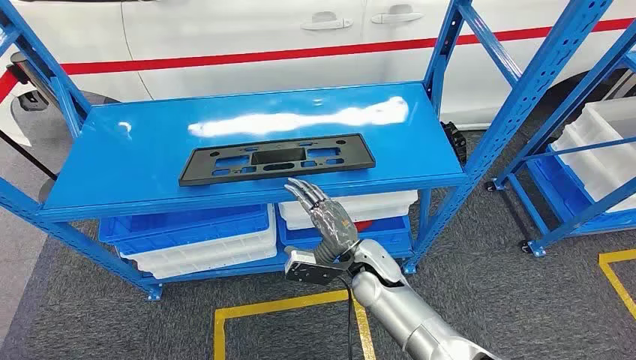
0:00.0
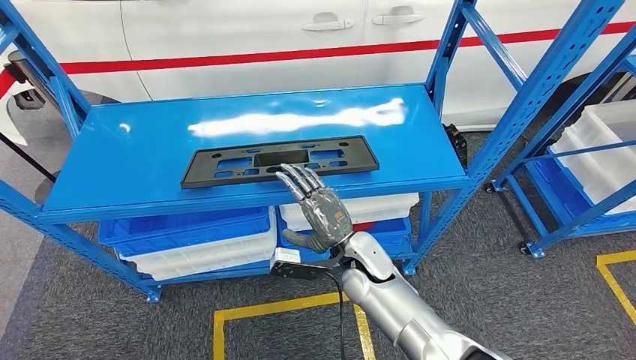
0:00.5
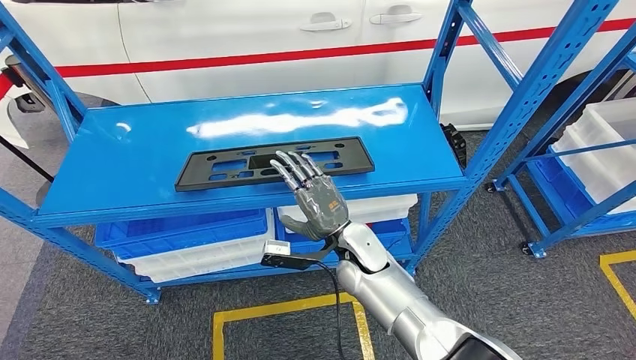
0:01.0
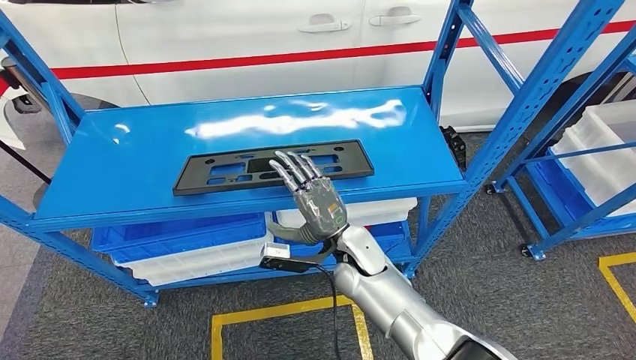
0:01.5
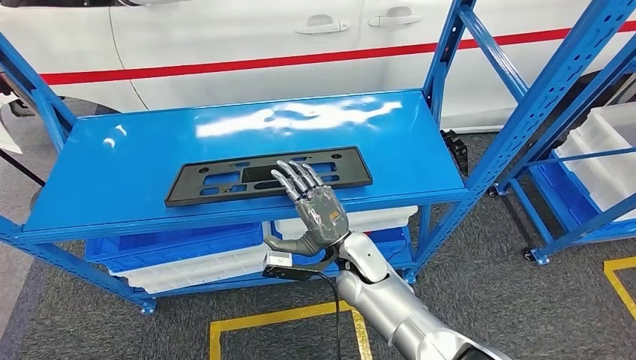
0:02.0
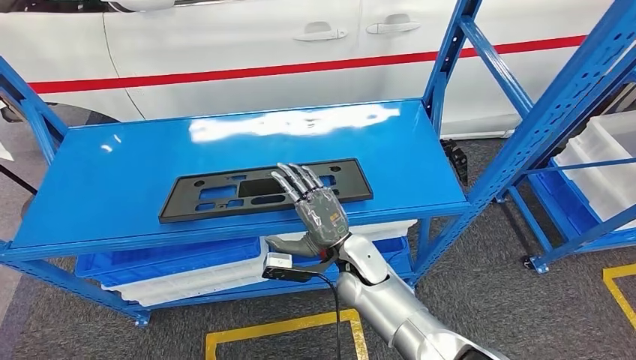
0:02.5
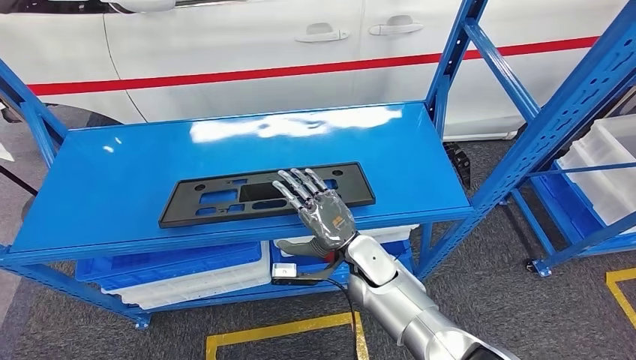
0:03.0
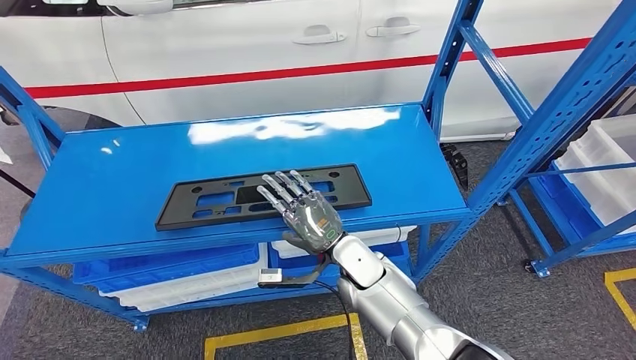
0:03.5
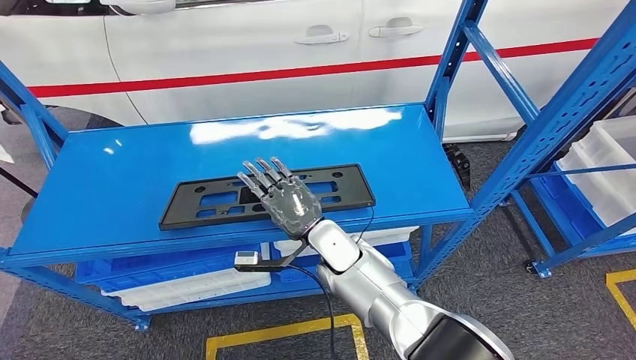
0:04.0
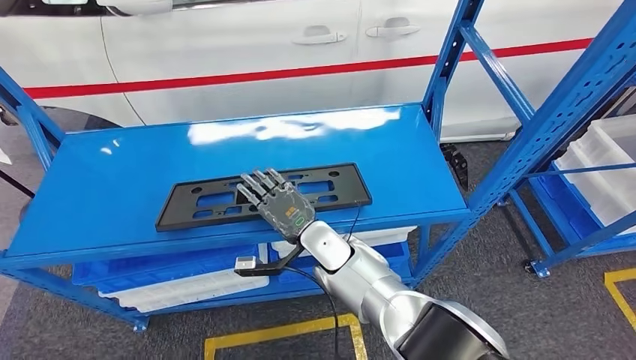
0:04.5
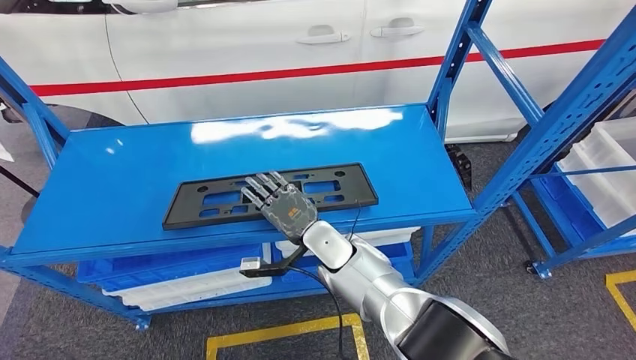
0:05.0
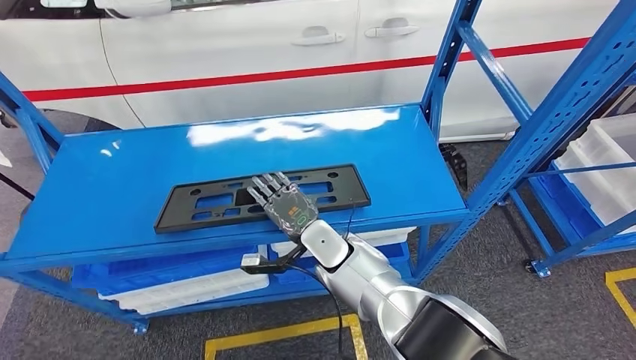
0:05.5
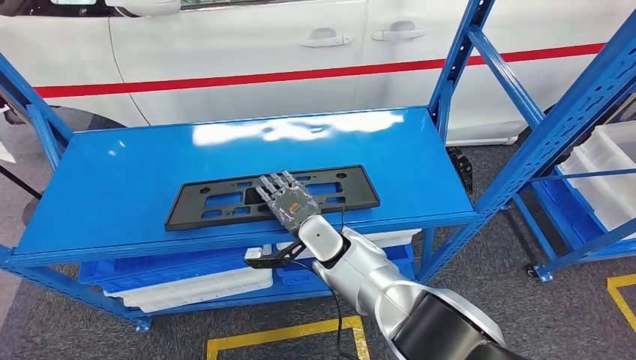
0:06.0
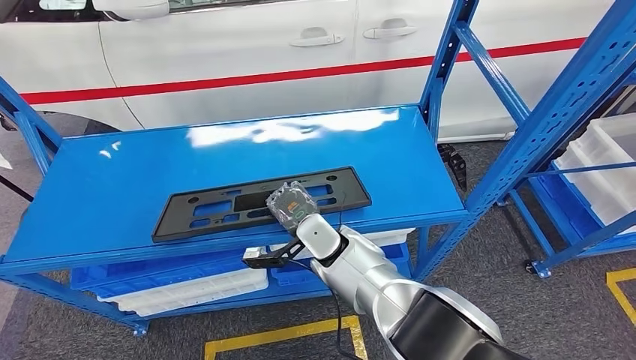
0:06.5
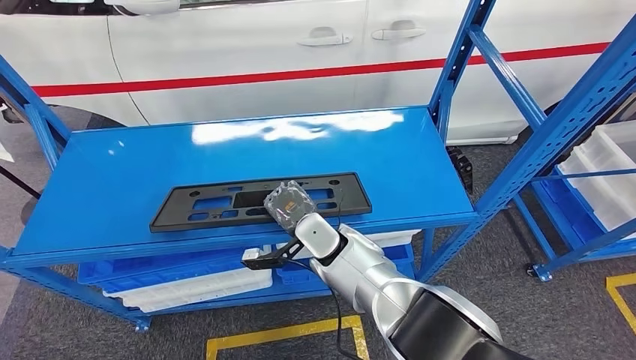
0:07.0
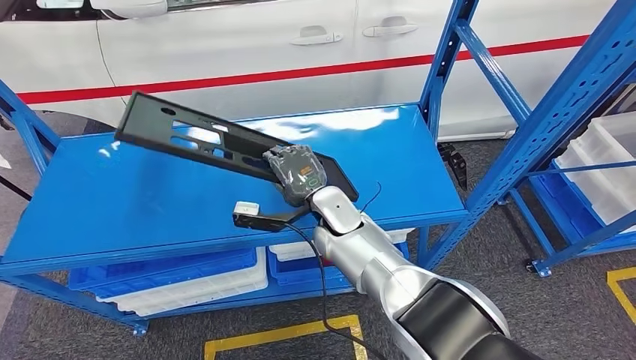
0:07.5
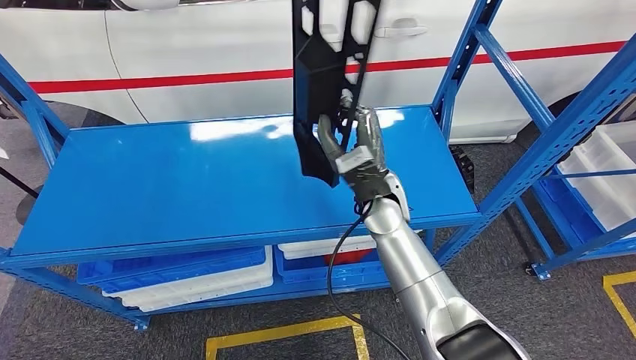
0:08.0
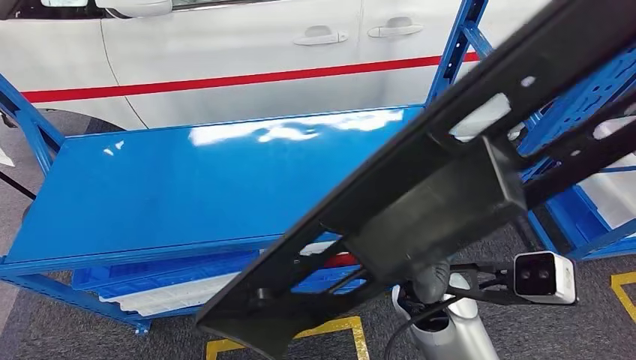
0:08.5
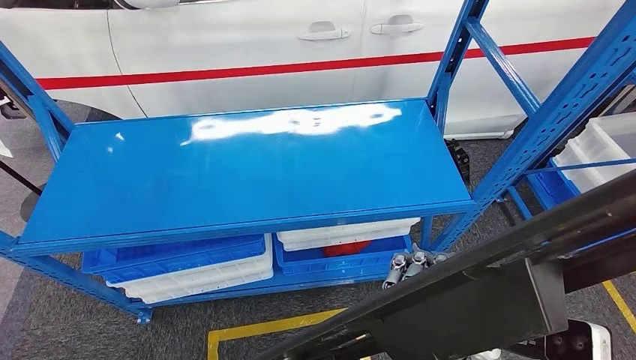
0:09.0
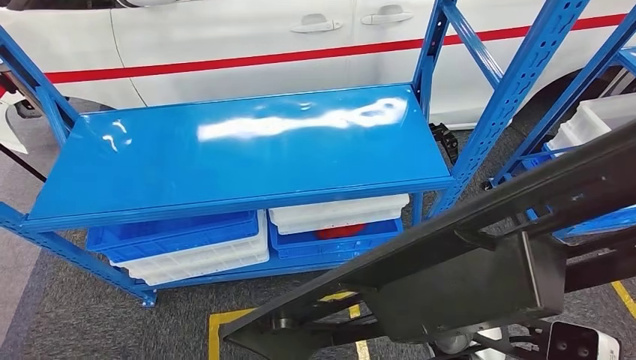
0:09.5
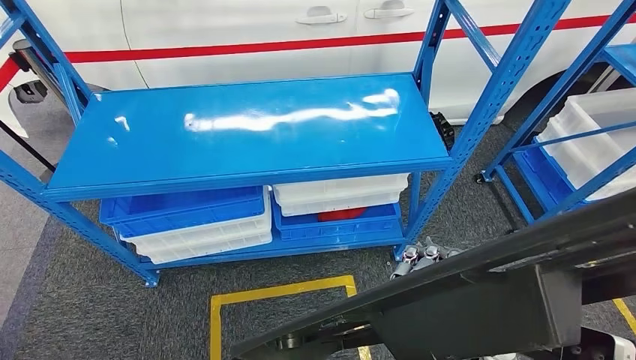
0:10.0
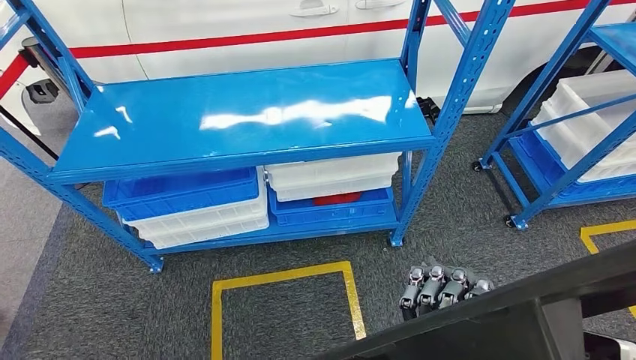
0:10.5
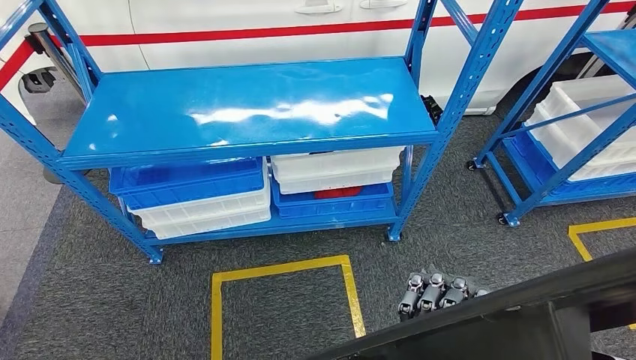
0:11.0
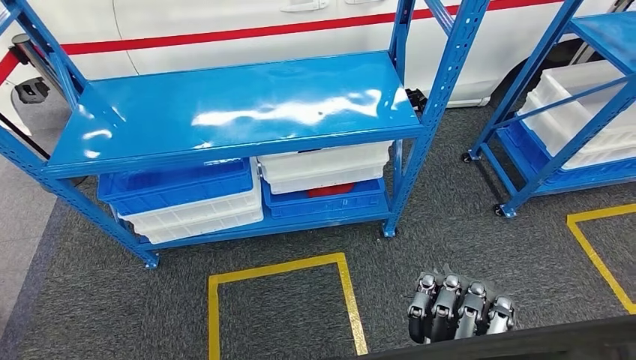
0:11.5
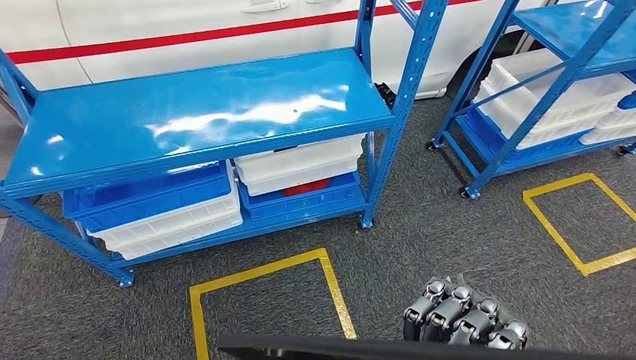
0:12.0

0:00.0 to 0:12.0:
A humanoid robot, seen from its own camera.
Step, 0:00.0 to 0:08.5: Pick up the large material from the shelf.

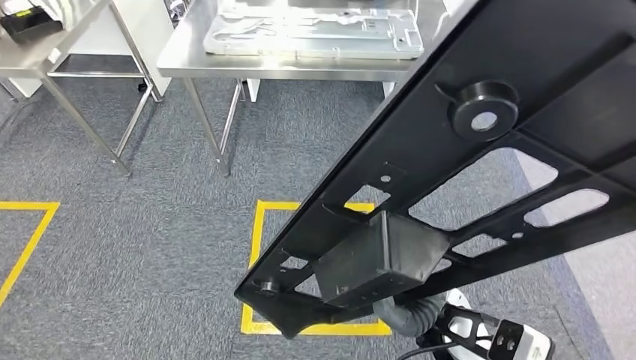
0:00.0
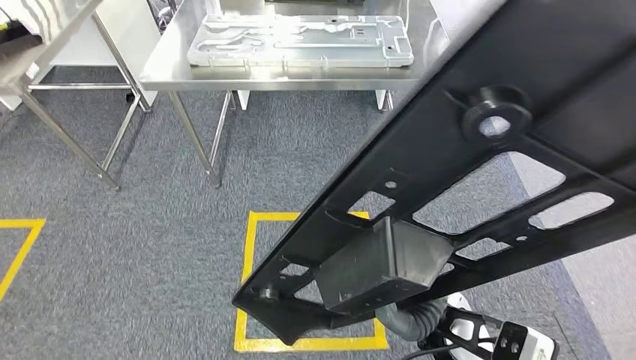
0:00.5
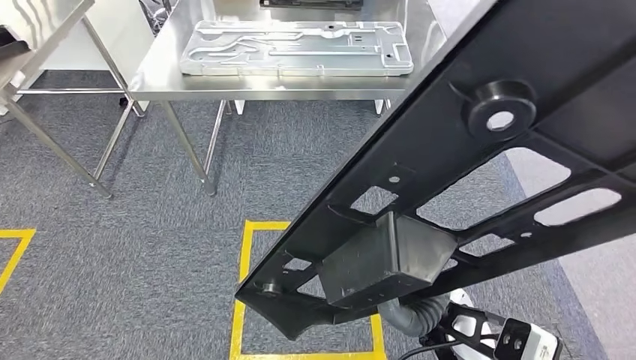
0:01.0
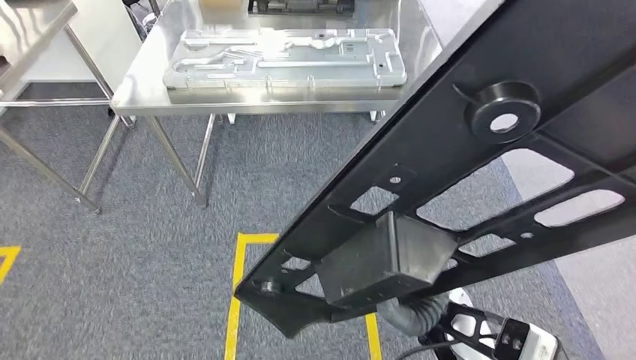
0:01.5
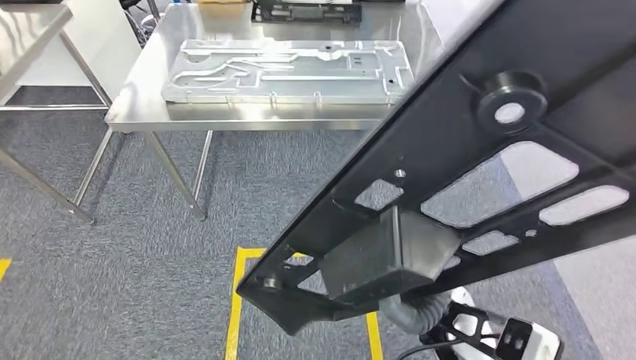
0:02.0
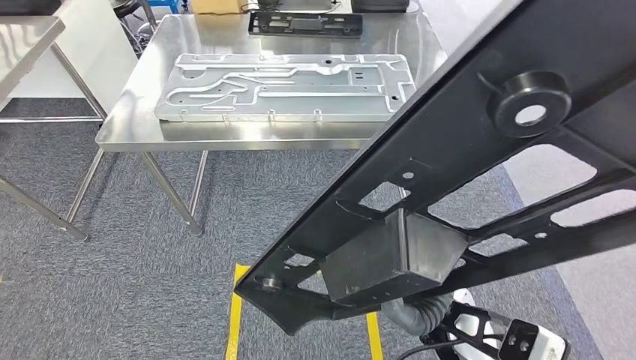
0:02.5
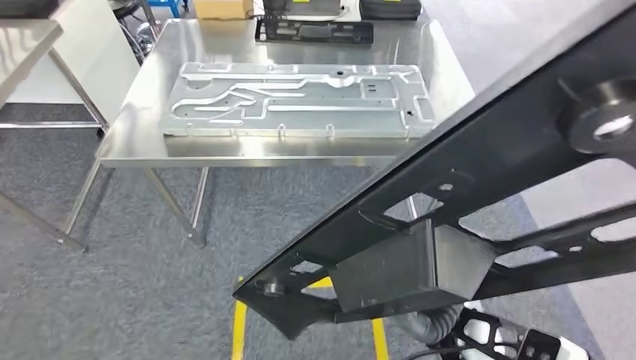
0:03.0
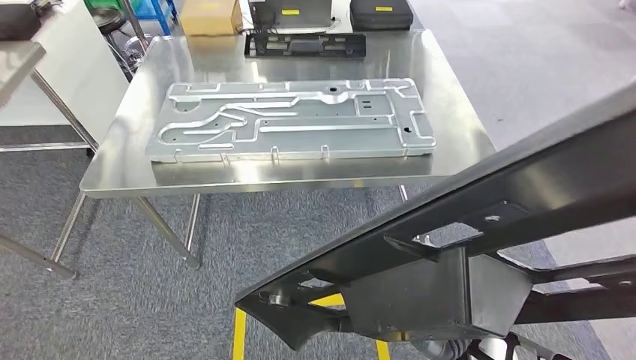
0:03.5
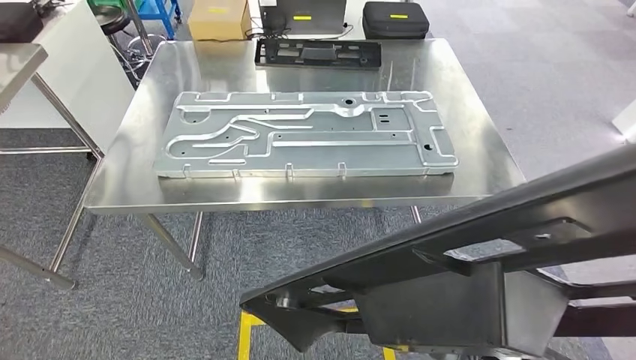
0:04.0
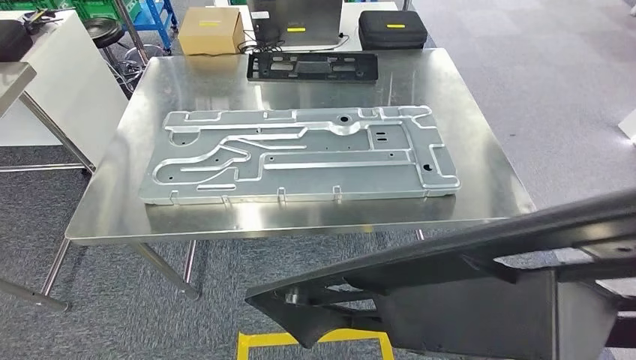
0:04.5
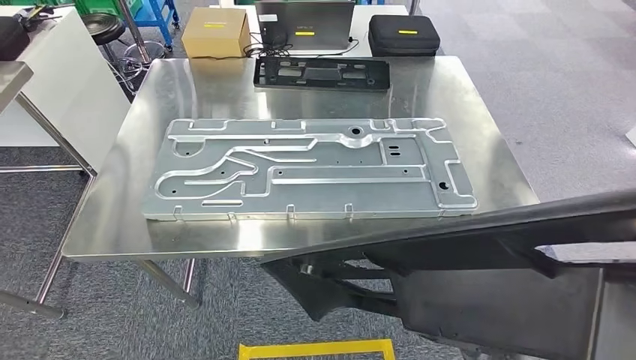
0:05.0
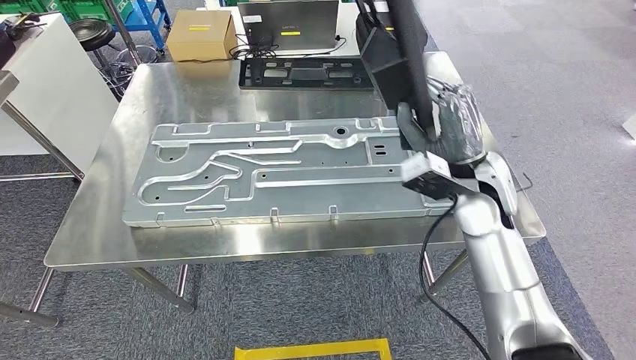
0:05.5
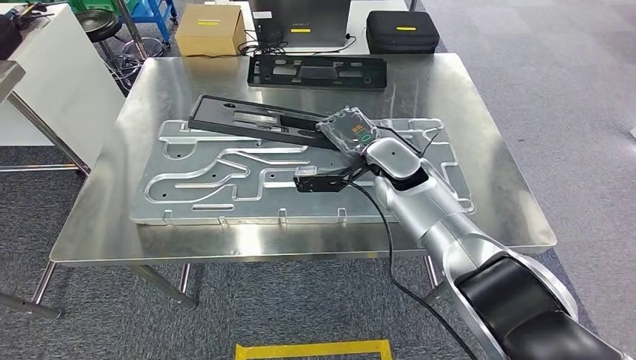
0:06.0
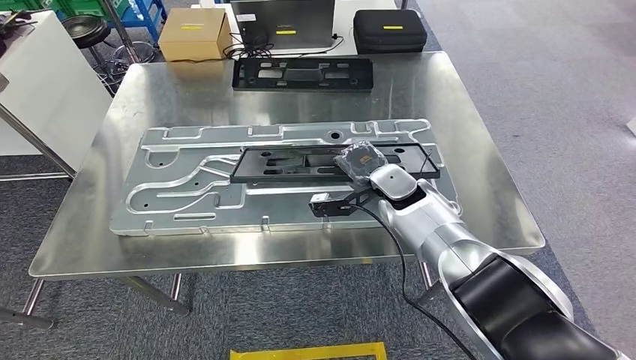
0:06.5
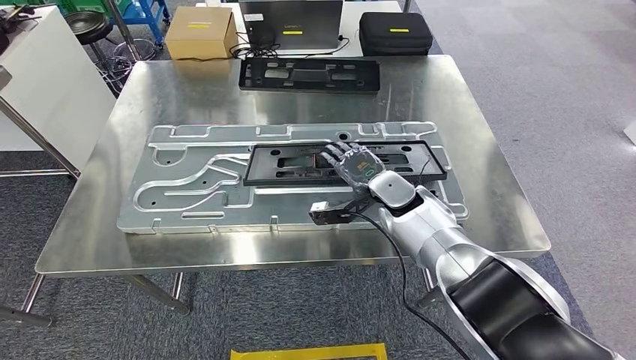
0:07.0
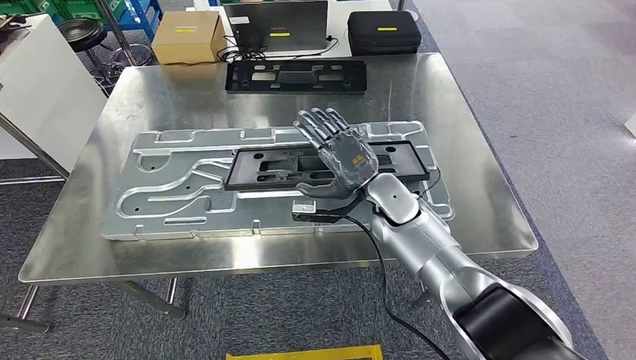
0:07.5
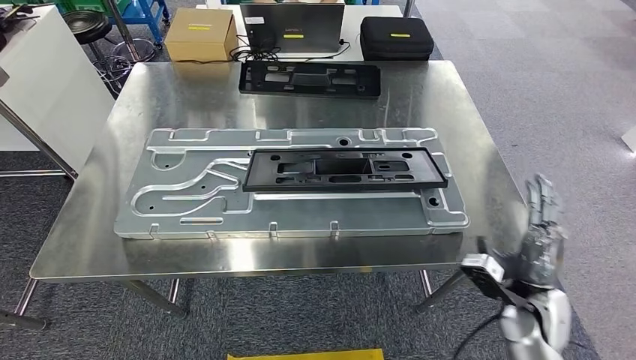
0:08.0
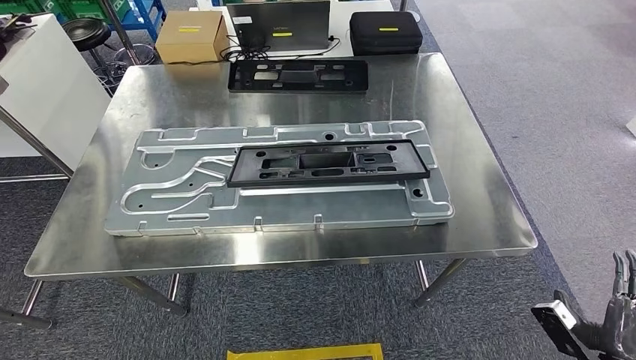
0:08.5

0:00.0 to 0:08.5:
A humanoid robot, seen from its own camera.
Step, 0:01.5 to 0:07.0: Insert the large material into the corresponding hole on the workbench.
